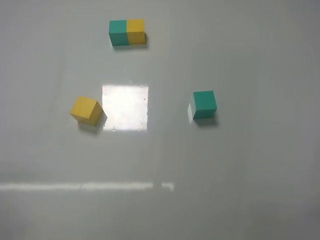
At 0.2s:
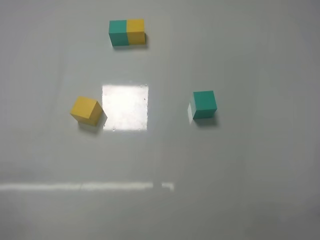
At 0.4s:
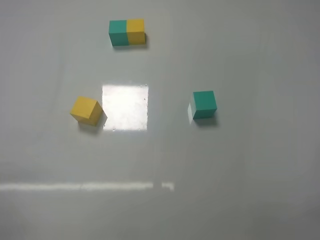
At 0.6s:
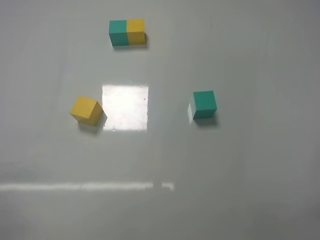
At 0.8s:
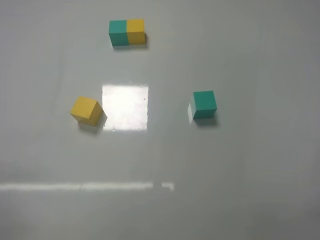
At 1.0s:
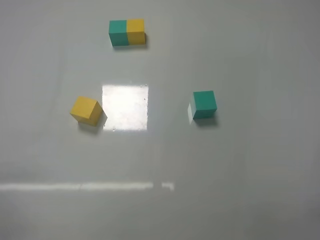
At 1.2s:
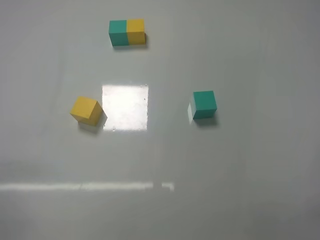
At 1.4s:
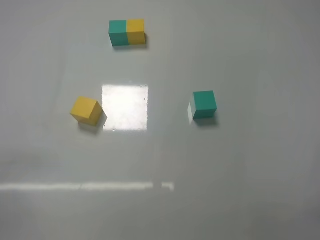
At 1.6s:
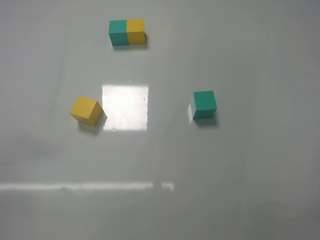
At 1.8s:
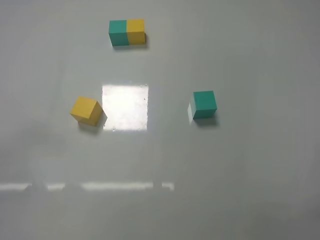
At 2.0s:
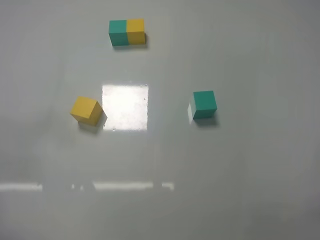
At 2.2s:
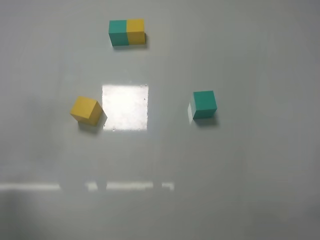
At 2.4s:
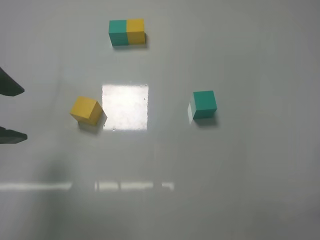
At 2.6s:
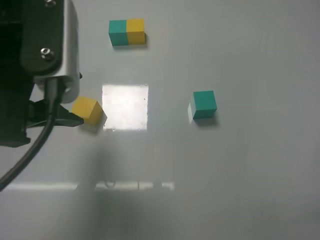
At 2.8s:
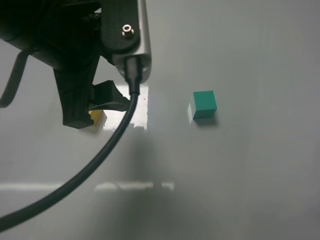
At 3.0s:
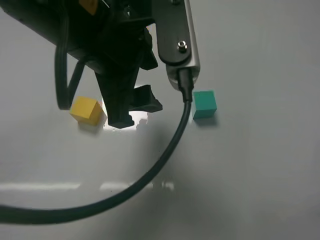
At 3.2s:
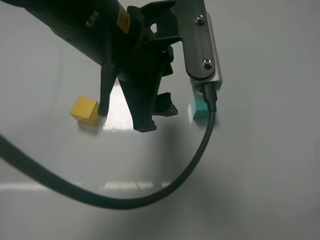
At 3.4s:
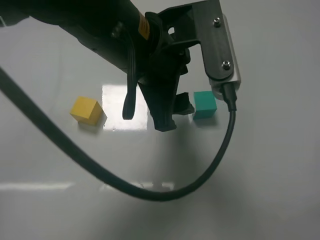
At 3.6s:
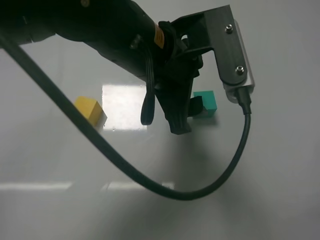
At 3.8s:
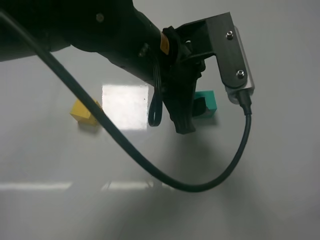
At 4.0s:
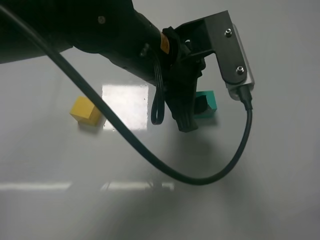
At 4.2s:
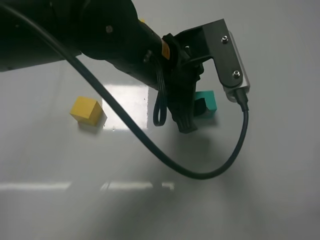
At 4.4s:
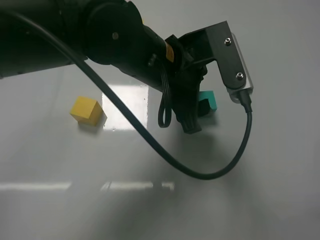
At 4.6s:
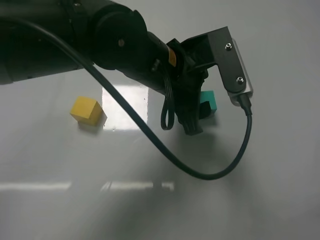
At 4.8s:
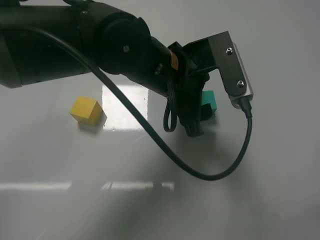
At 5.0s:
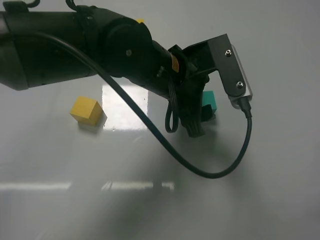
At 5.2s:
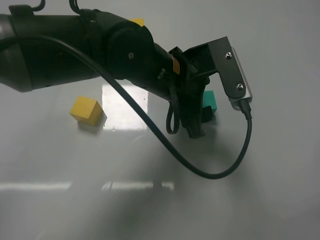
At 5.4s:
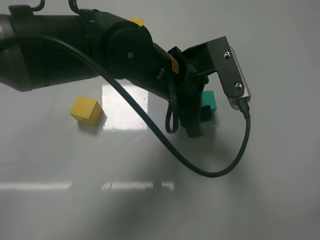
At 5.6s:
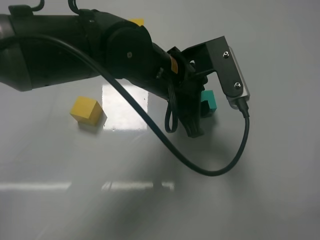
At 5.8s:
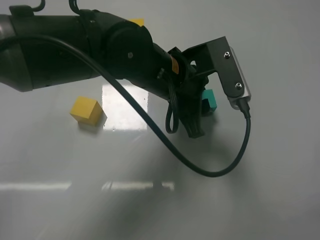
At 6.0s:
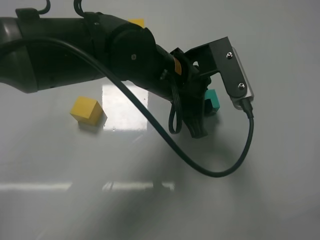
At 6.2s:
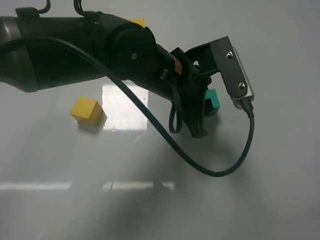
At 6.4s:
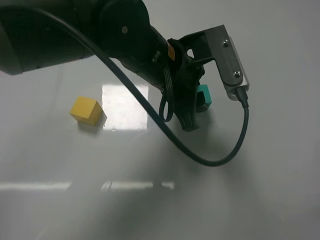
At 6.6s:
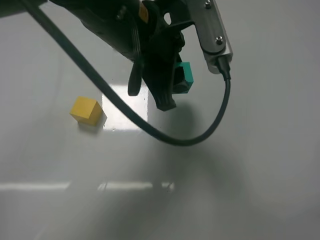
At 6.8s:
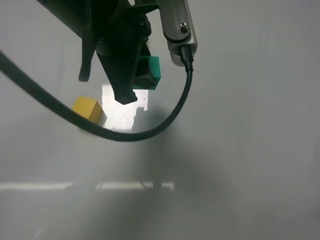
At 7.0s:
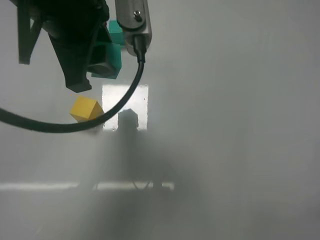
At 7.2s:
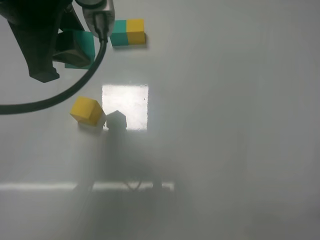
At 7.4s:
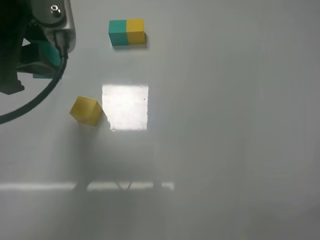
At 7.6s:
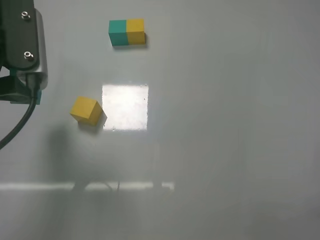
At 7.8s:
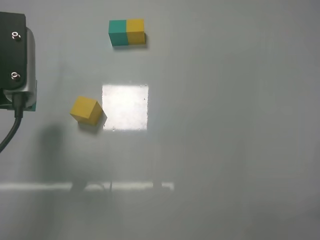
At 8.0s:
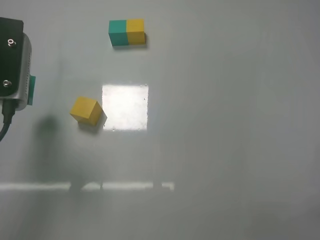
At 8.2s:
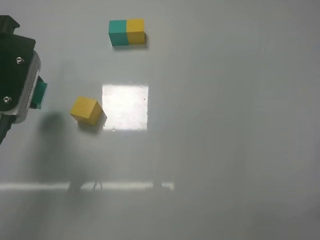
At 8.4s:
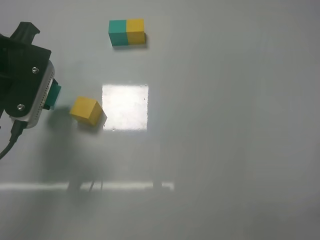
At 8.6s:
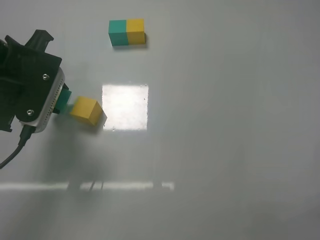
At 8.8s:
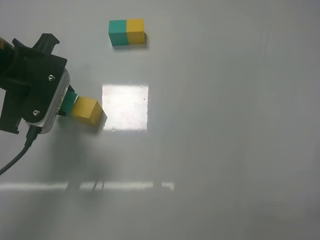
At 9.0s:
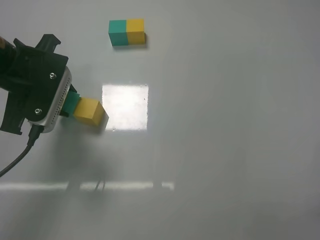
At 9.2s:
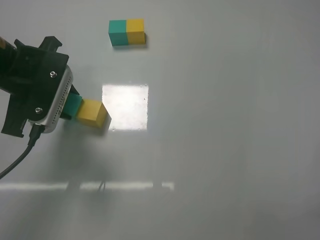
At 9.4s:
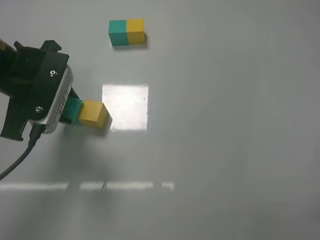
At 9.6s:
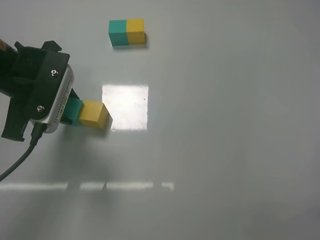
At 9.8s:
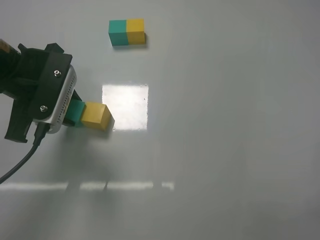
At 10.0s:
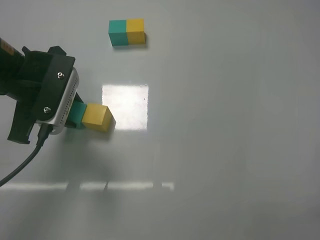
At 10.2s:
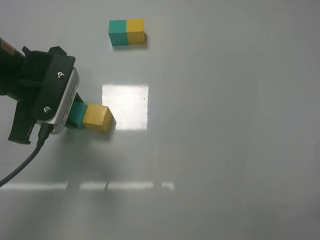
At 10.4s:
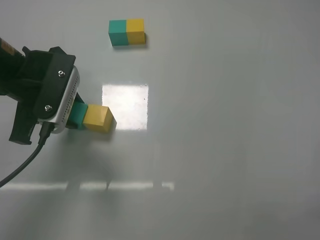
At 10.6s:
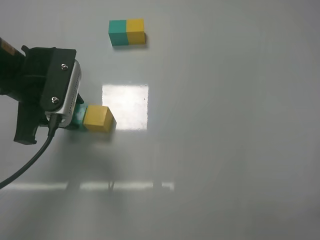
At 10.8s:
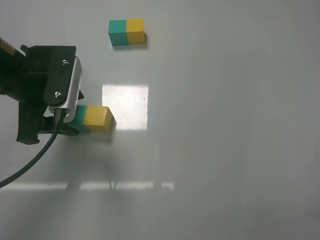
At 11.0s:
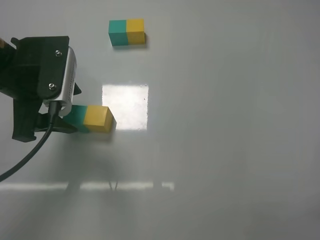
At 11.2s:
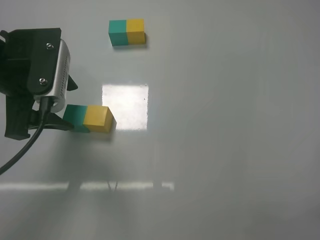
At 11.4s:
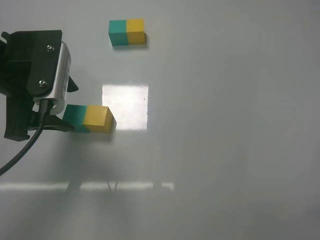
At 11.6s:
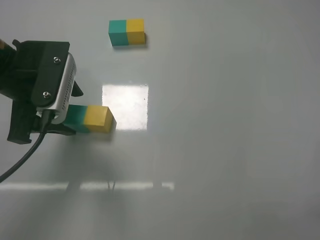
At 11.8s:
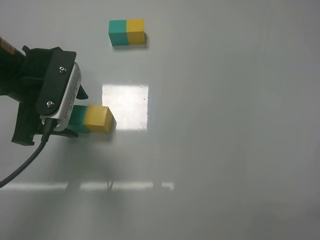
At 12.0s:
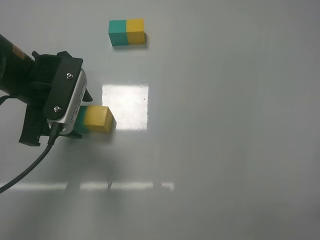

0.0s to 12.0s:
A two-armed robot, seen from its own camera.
Task of the whole recording: According to the building block template in front, assemble the scattered blocks together.
Step, 0.0s to 5.8s: Grasp the green block with left gripper.
Step, 6.0s to 10.8s: Put the green cube on the left of the yellow cube with the left gripper.
1.6s to 3.0s: The left gripper travels to the right and forward by roughly 30 cm.
3.0s to 4.4s: The left gripper shifts some 10 cm to the right, forward and downward.
4.4s to 6.0s: The left gripper closes up.
6.0s to 7.6s: The left gripper shifts roughly 25 cm to the left.
7.6s to 9.0s: The left gripper moves forward, some 5 cm.
9.0s to 10.4s: There are only small adjustments of the grippers.
10.4s to 12.0s: The left gripper opens its fingers.

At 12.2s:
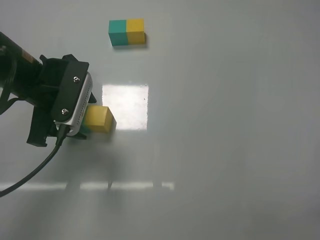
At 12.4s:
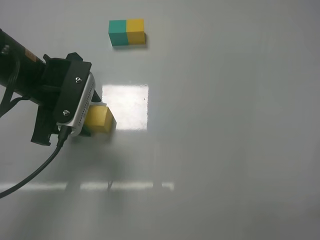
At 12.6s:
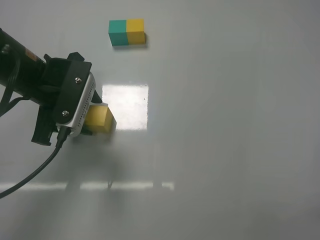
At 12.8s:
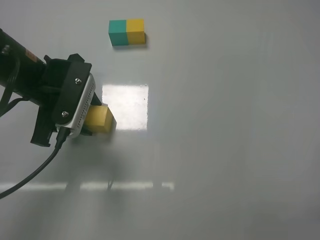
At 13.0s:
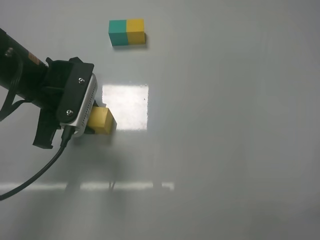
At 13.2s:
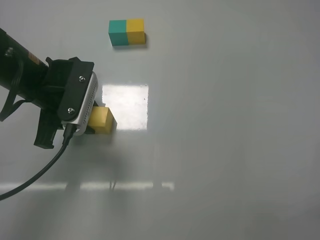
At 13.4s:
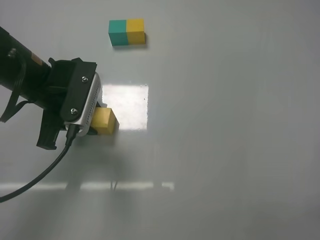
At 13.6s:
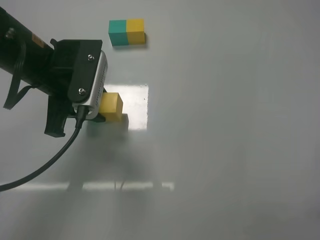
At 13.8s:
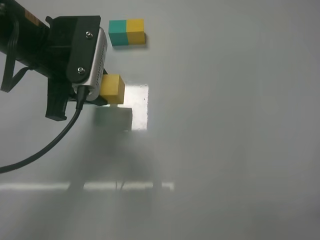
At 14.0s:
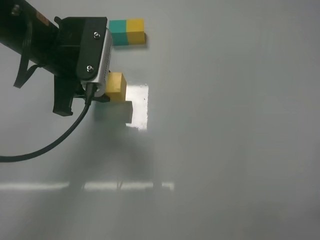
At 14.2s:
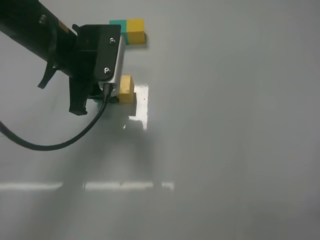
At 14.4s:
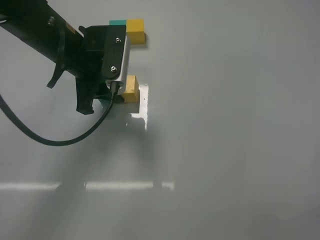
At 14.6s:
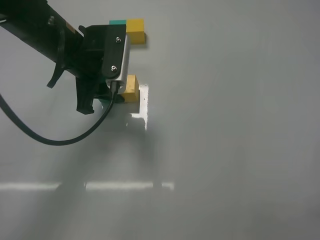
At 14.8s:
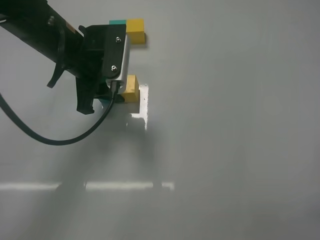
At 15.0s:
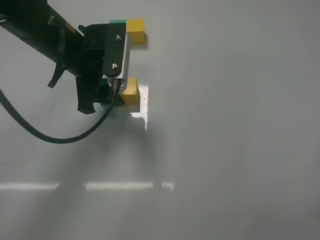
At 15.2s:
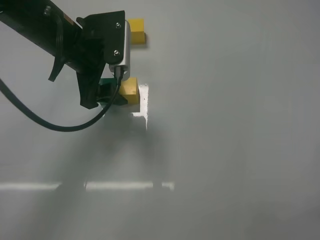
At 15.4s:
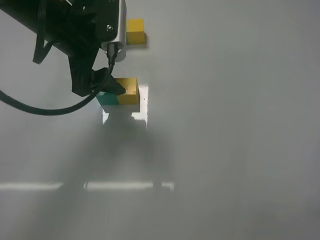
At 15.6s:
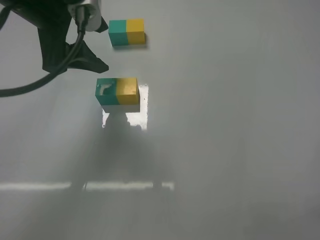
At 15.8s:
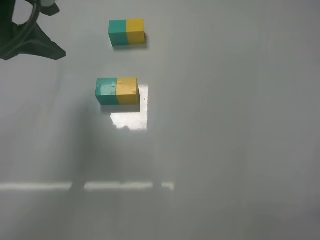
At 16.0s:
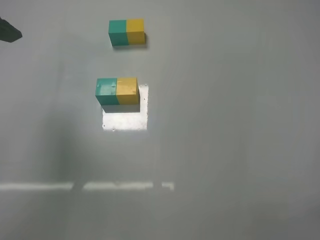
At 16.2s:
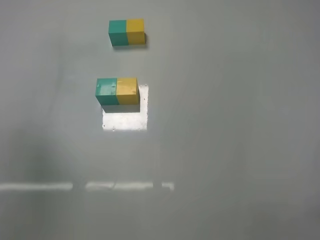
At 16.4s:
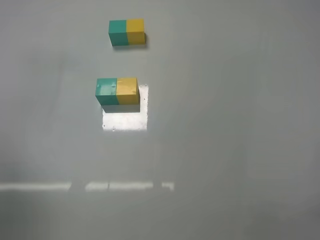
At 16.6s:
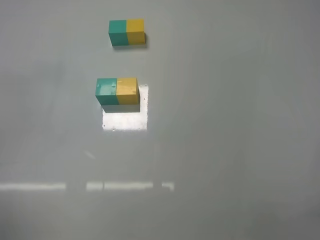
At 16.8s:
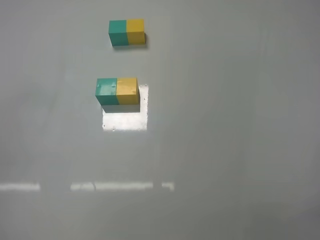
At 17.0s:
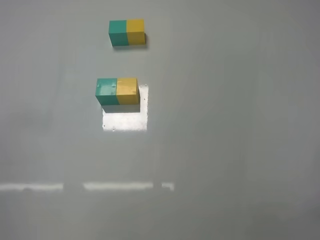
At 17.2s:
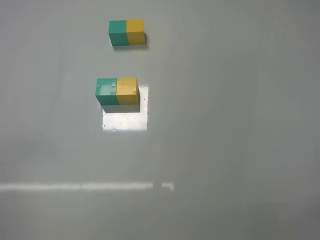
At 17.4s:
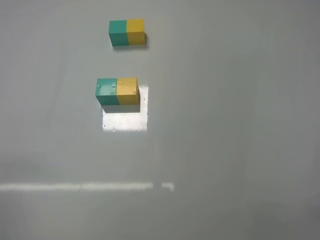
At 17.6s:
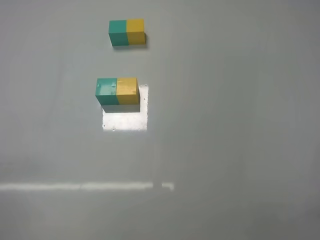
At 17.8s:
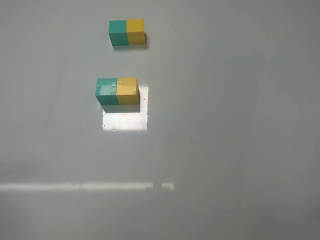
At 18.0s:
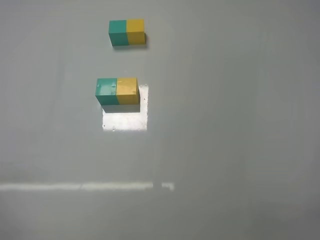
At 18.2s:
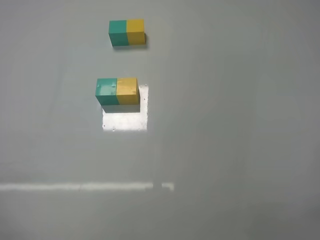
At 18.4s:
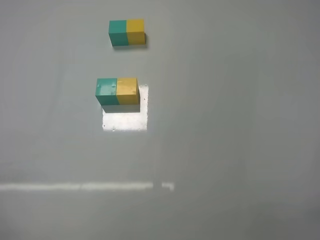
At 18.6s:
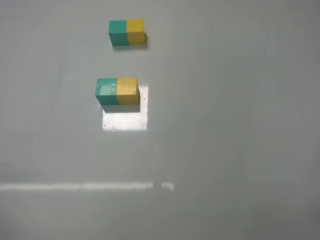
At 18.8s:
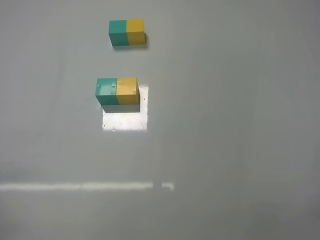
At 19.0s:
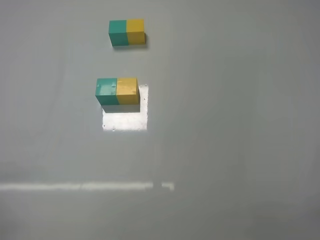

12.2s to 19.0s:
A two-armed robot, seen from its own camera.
Task of the whole recording: According to the building block template in front, assemble the scattered blocks together.
Step, 12.2s to 15.2s: Put the yellow cube and green cube in the center of the table with the left gripper.
12.2s to 13.6s: The left gripper closes its fingers.
13.6s to 15.0s: The left gripper moves roughly 5 cm, and opens.
15.0s to 16.2s: The left gripper is displaced backward, to the left and upward by roughly 25 cm.
16.2s to 17.6s: The left gripper goes about 30 cm downward and backward.

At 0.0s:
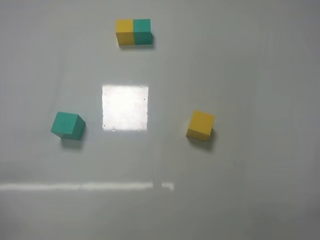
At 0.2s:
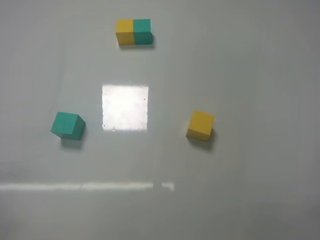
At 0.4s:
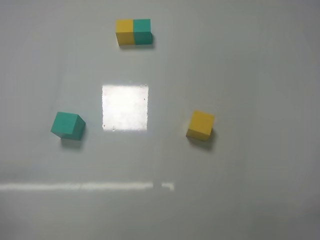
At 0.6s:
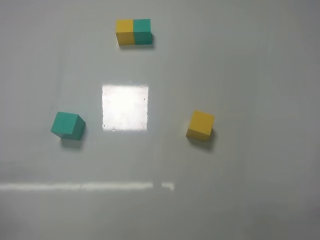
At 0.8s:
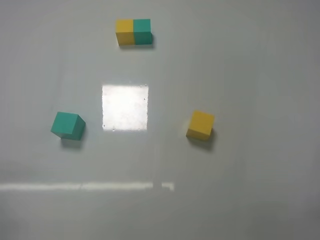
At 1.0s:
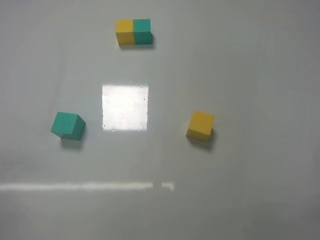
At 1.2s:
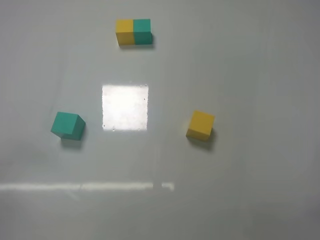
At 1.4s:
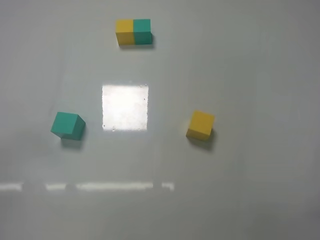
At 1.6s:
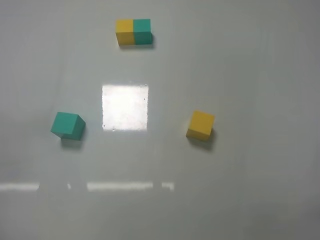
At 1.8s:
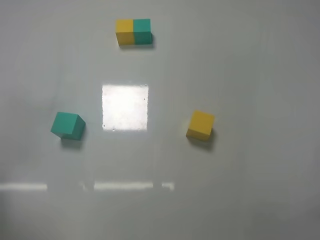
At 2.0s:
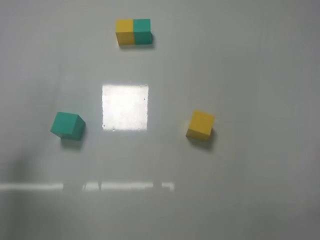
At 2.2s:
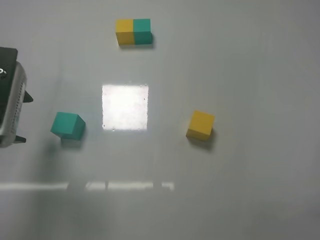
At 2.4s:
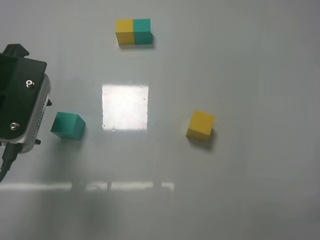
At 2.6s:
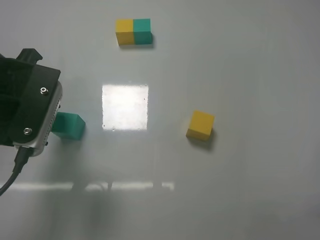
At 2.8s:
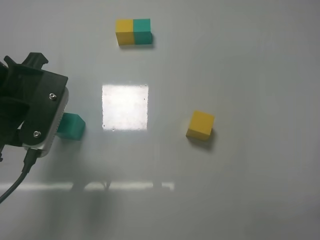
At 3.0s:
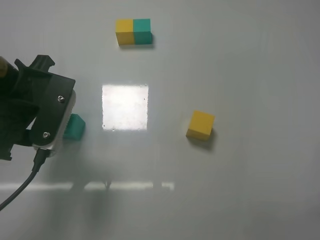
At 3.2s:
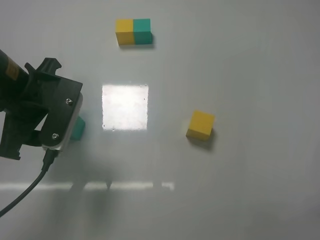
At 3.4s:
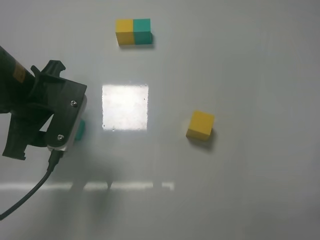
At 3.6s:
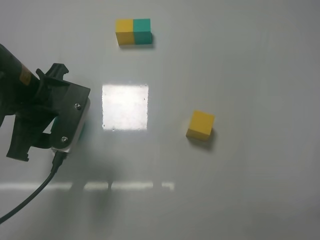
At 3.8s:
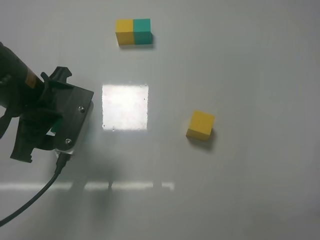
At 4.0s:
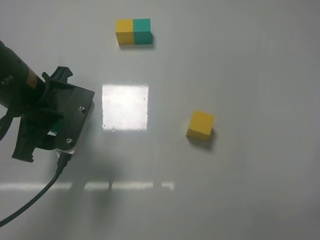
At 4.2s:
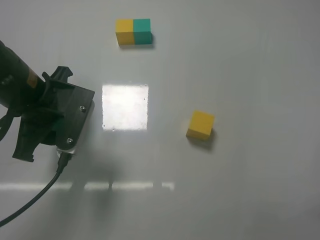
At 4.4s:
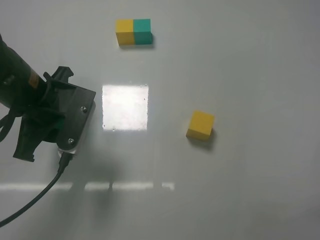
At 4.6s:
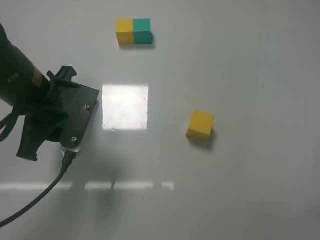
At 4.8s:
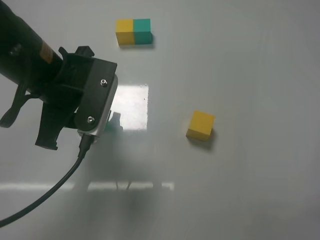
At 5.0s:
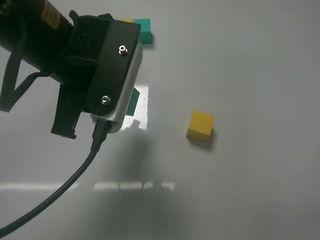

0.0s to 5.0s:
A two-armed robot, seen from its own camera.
Task of the whole recording: According to the building block template in front, assemble the scattered blocks together.
Step, 0.0s to 4.2s: Grasp the green block with left gripper.
1.6s to 3.4s: The left gripper heads forward and to the right, covering roughly 20 cm.
3.4s to 5.0s: The left gripper is displaced to the right and upward by about 10 cm, and closes.
